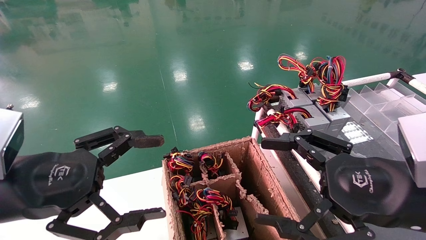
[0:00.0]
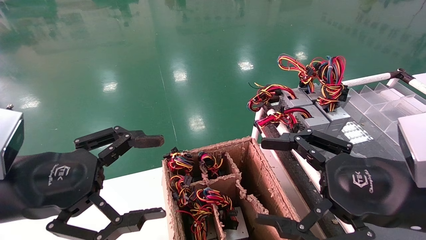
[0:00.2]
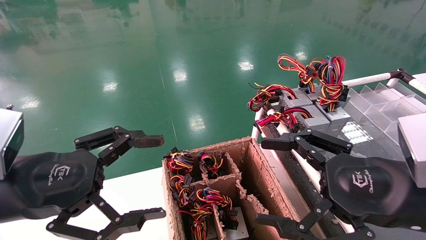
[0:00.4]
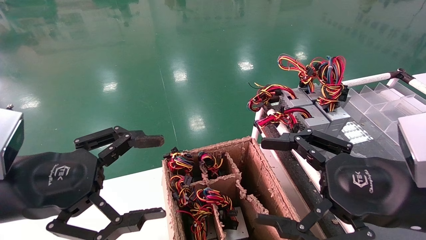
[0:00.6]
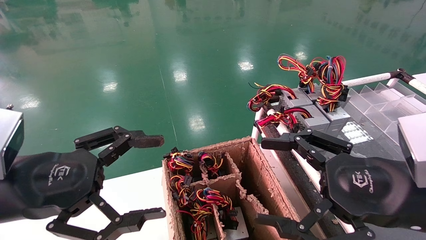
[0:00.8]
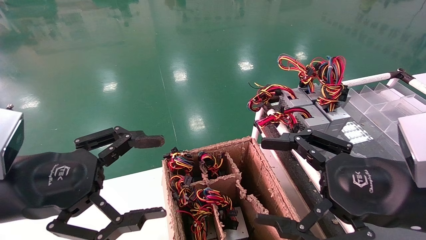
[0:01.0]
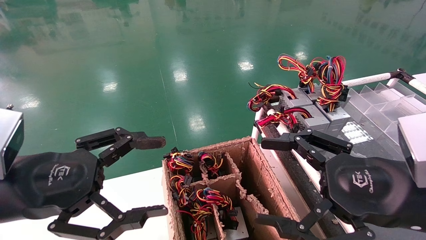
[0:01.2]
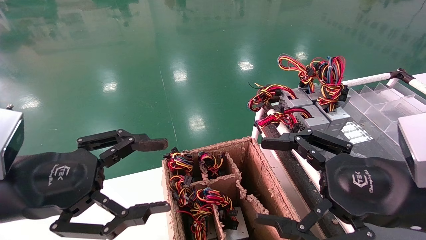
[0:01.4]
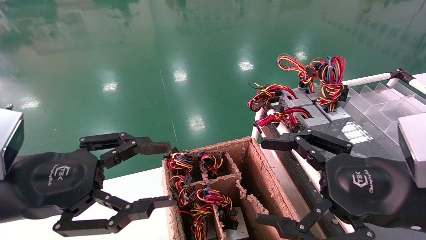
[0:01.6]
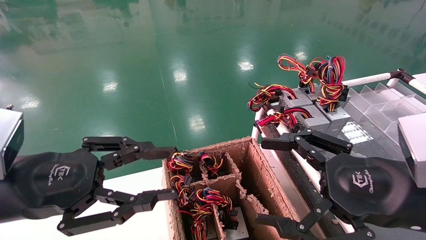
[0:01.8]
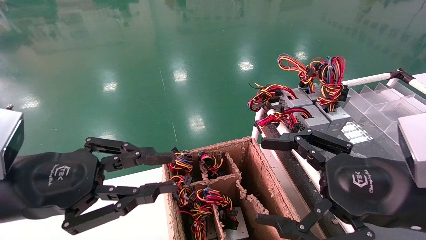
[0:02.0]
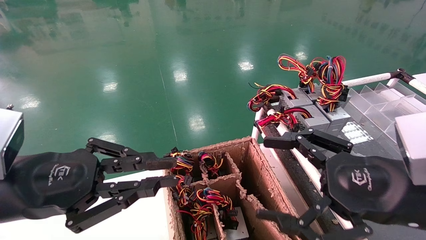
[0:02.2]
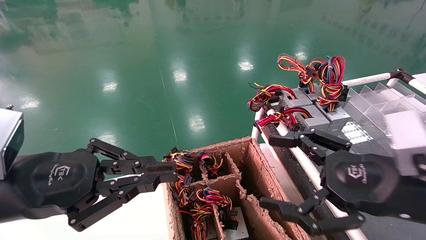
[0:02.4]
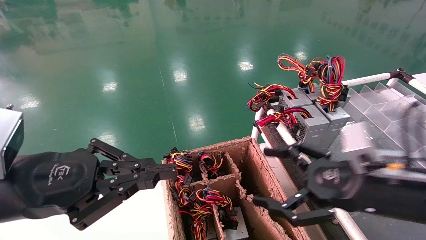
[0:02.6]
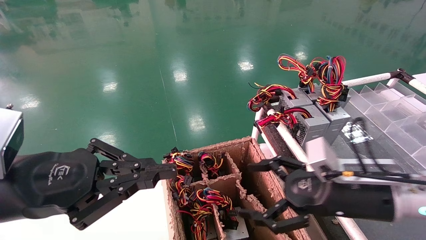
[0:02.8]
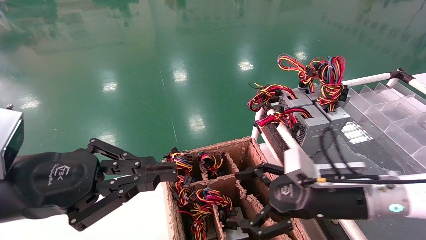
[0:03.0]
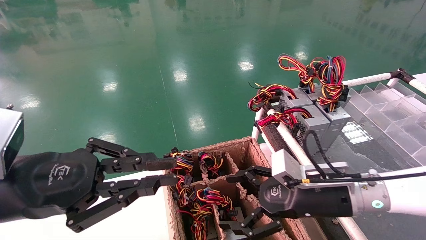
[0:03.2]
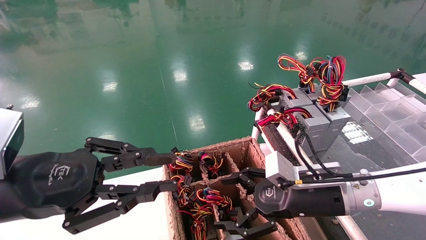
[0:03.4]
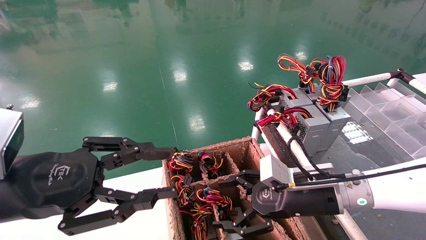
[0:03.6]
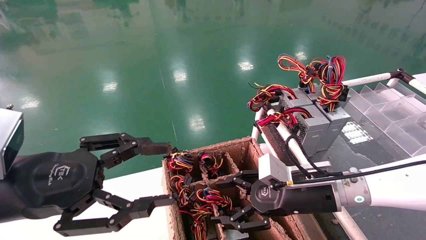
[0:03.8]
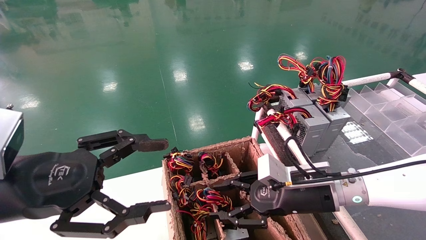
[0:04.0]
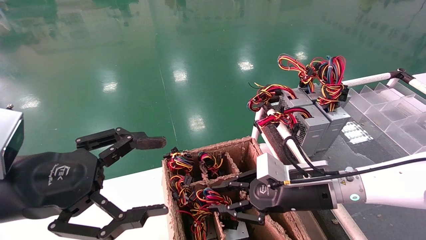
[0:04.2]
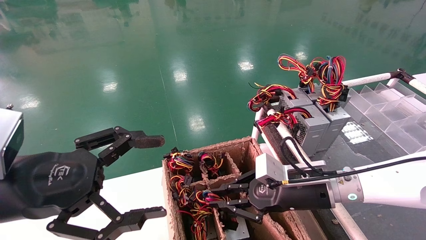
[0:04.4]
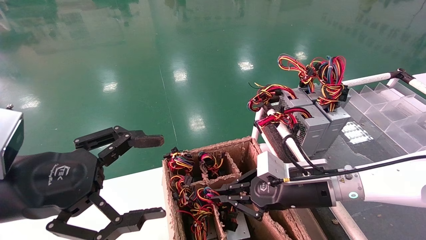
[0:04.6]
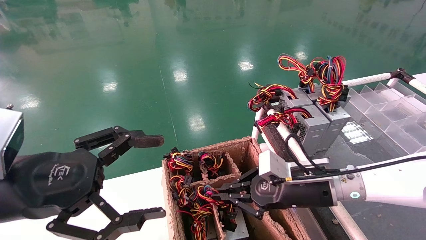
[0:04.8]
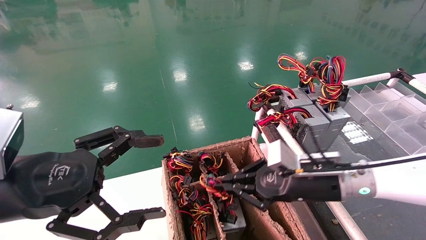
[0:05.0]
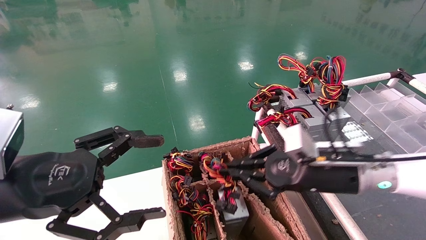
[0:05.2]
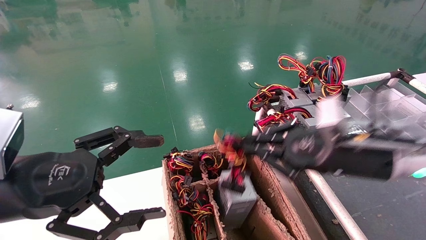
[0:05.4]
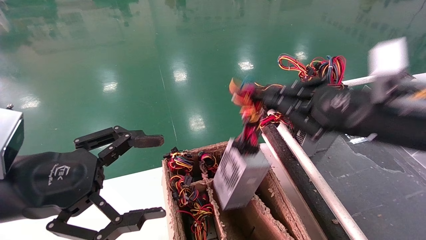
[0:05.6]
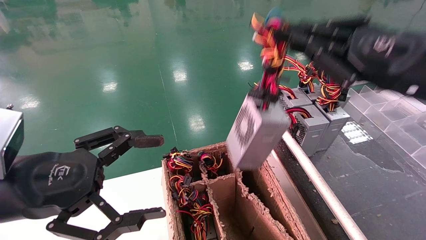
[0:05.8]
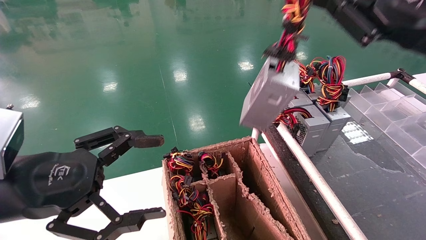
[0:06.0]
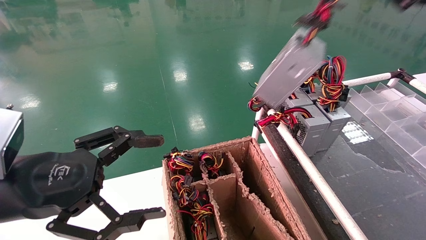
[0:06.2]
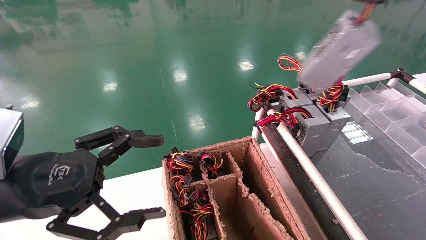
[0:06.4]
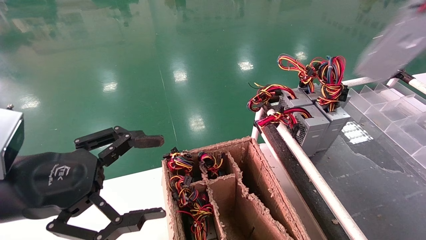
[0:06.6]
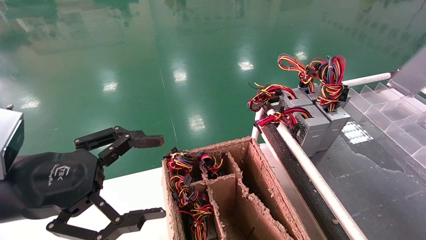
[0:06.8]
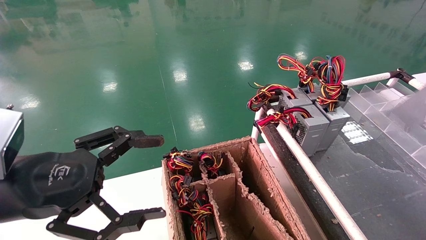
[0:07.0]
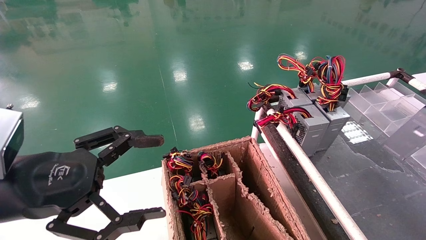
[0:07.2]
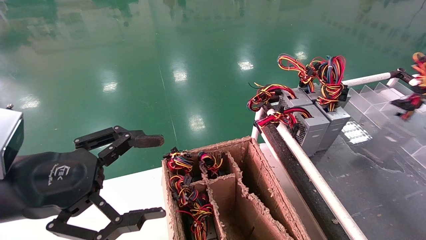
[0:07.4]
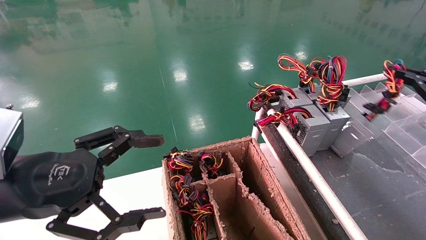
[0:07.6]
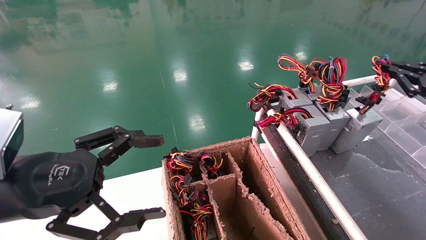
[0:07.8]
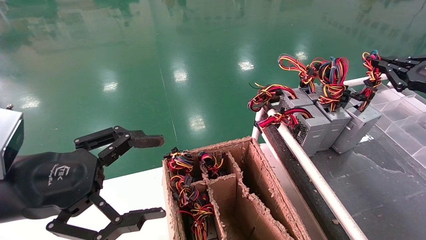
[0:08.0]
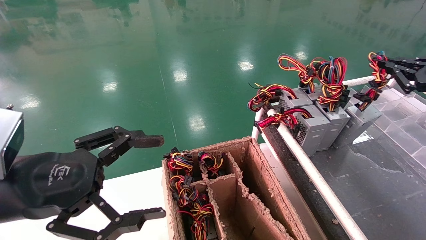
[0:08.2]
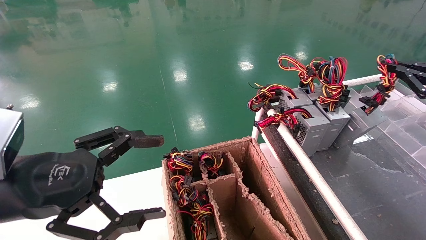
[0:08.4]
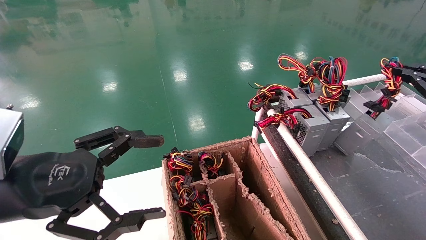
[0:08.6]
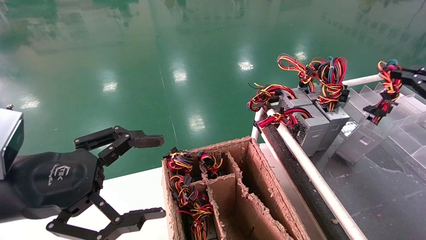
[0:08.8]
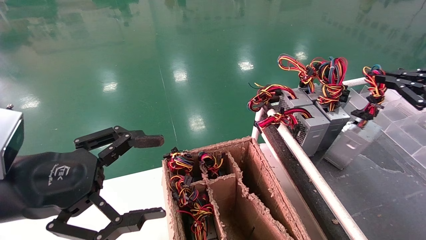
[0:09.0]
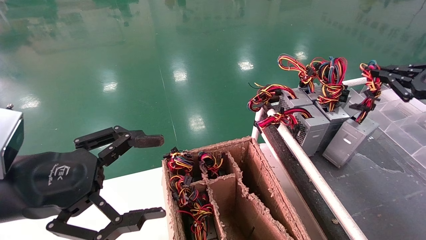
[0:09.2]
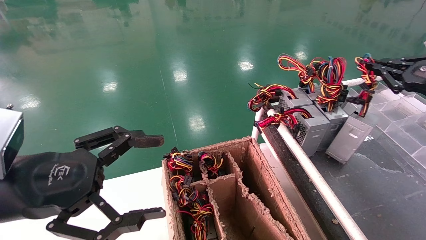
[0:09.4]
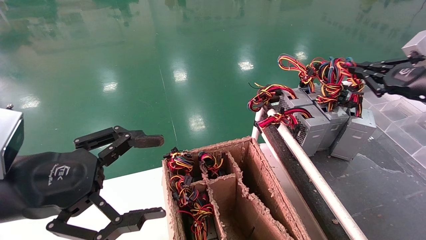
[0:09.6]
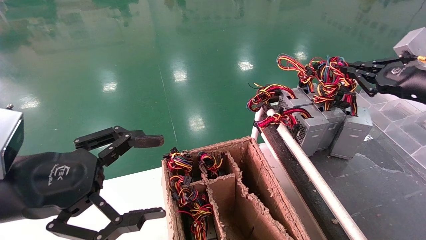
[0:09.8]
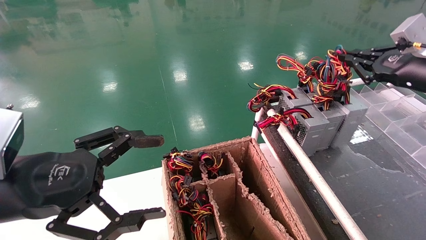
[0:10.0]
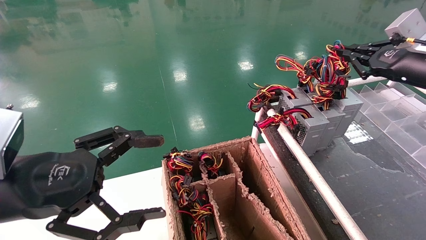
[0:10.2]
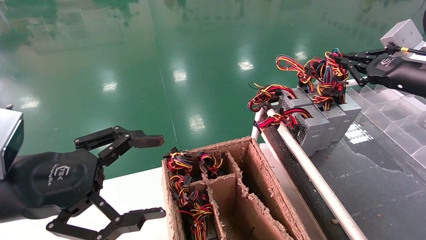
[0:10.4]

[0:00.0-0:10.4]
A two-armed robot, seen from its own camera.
Step, 2.4 to 4.4 s: Grab and lift the power supply from the large box.
0.0 to 1.4 s: Both grippers stay about where they are.
1.4 to 3.0 s: The right gripper goes about 15 cm forward and downward. The left gripper closes up.
3.0 to 4.4 s: The right gripper moves about 5 cm, and closes. Meanwhile the left gripper opens its fingers.
4.4 to 6.0 s: The right gripper is displaced upward and to the right by about 30 cm.
6.0 to 7.4 s: The right gripper is displaced to the right and downward by approximately 20 cm.
7.4 to 9.0 s: The right gripper ends up roughly 5 cm from where it was.
9.0 to 10.4 s: The right gripper shifts roughly 10 cm to the left and forward.

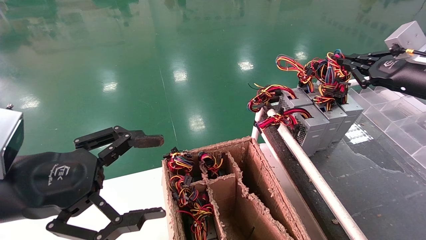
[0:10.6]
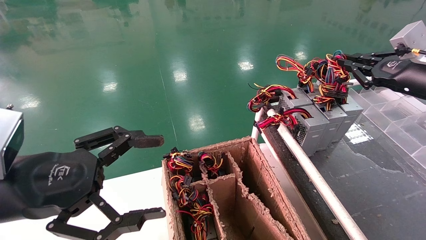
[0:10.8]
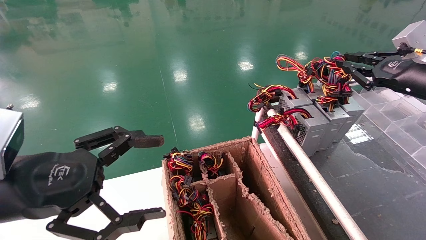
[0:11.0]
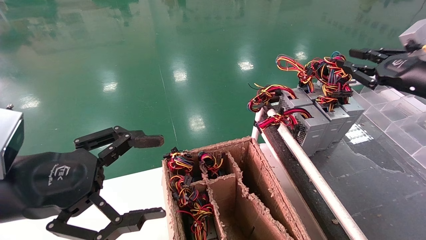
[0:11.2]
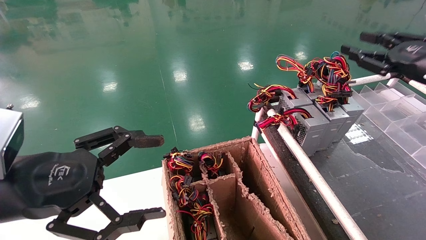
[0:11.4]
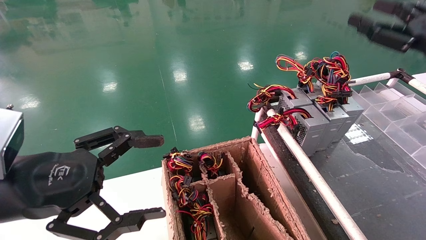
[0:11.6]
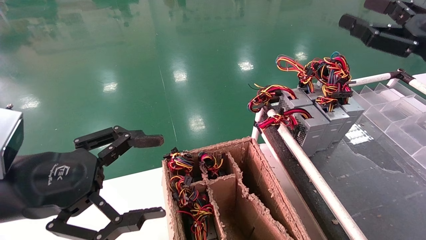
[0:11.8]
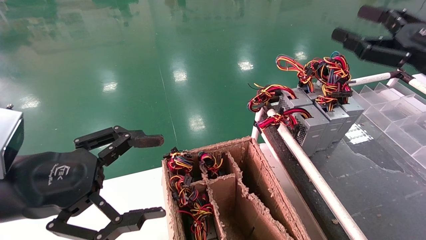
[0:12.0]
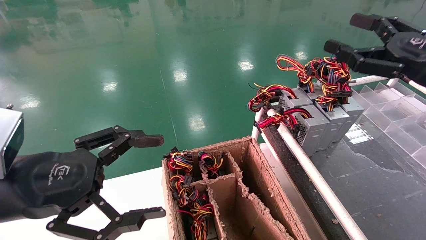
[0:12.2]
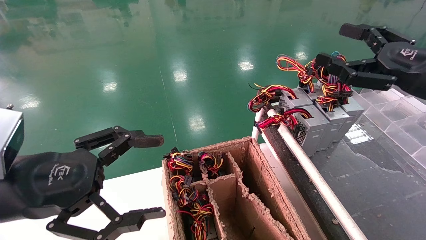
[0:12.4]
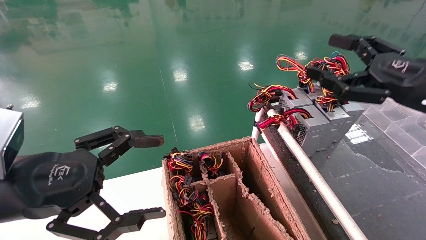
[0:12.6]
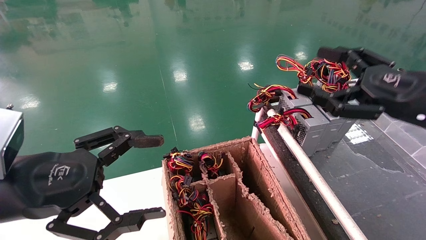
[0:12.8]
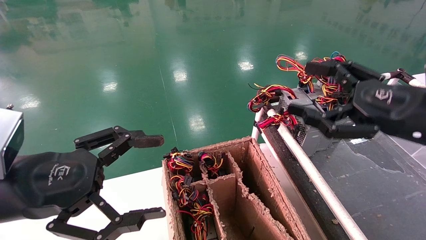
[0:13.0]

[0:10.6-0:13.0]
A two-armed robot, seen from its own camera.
10.6 to 11.8 s: The right gripper shifts approximately 5 cm backward, and opens its fingers.
11.8 to 13.0 s: The right gripper travels to the left, downward and backward by about 10 cm.

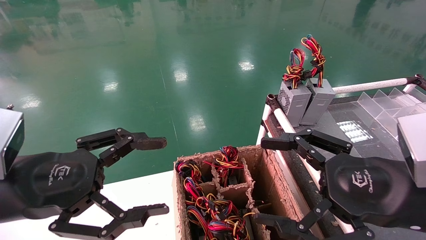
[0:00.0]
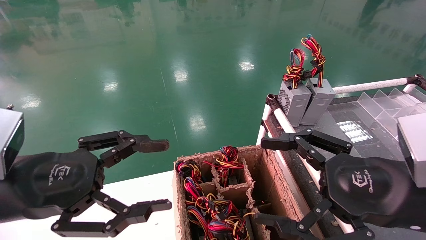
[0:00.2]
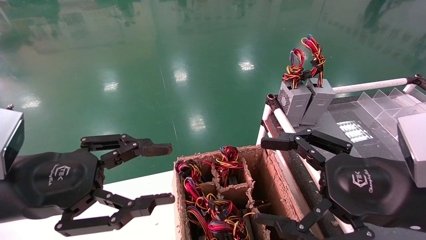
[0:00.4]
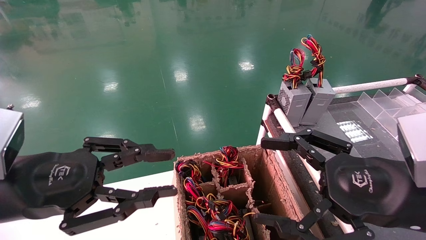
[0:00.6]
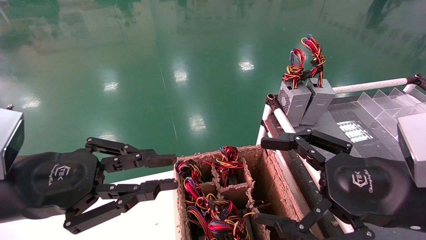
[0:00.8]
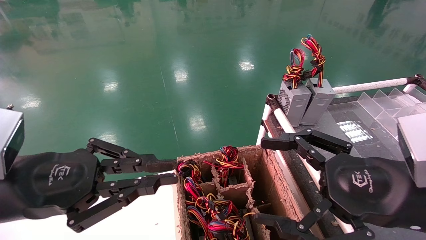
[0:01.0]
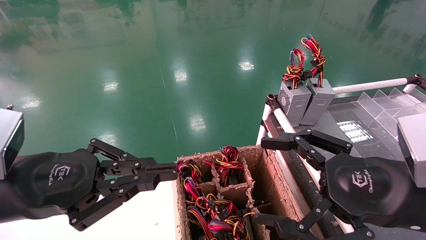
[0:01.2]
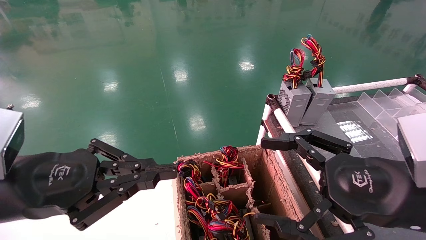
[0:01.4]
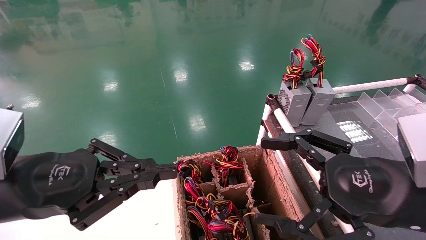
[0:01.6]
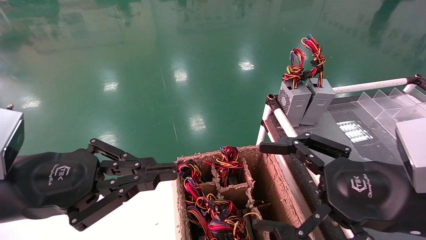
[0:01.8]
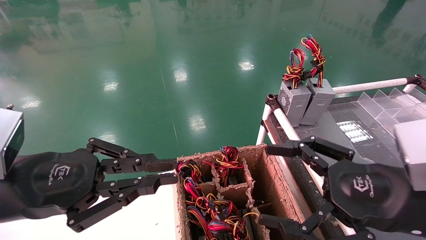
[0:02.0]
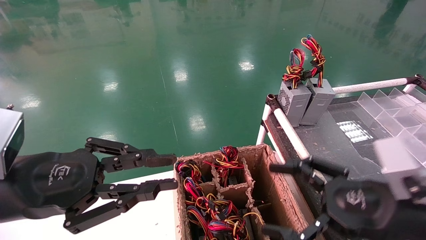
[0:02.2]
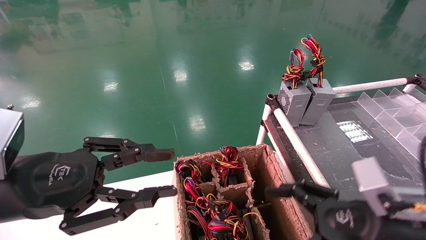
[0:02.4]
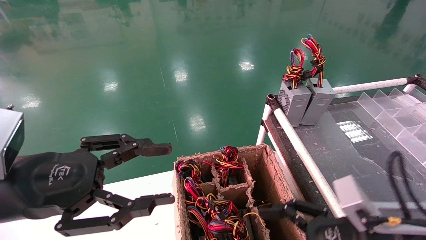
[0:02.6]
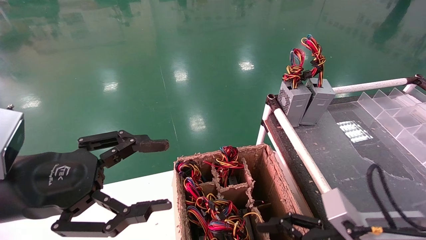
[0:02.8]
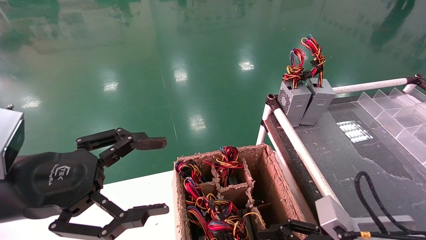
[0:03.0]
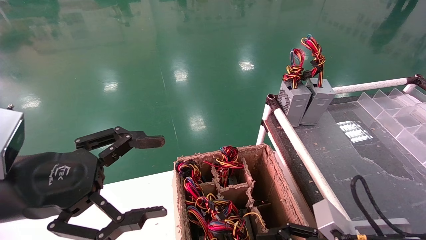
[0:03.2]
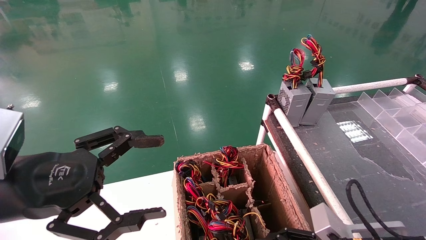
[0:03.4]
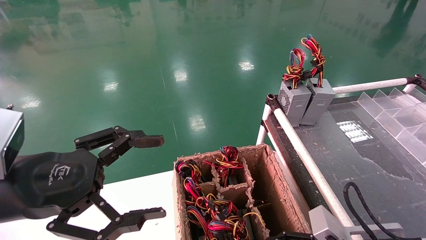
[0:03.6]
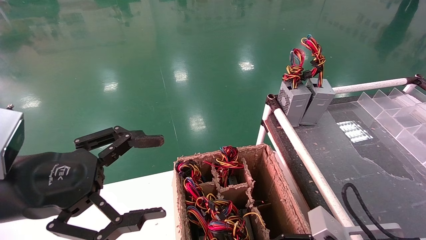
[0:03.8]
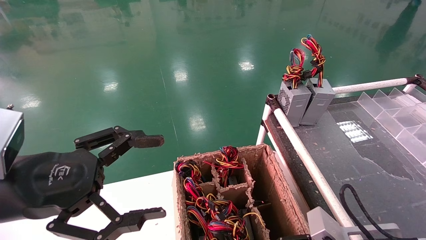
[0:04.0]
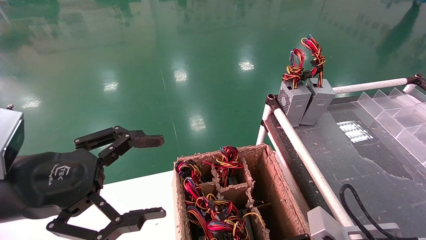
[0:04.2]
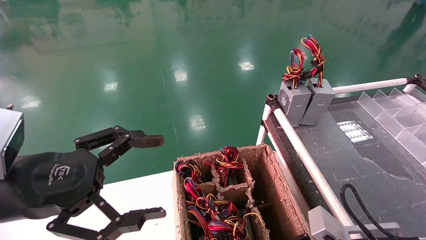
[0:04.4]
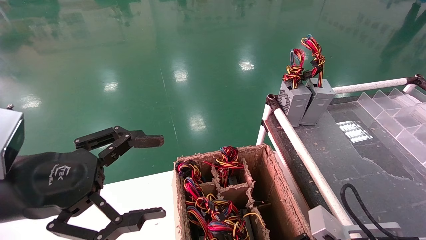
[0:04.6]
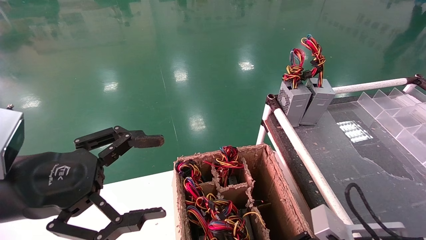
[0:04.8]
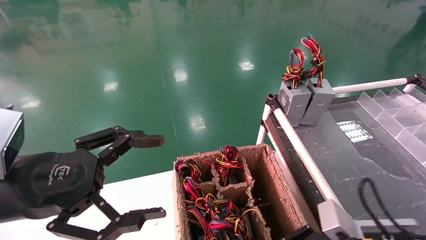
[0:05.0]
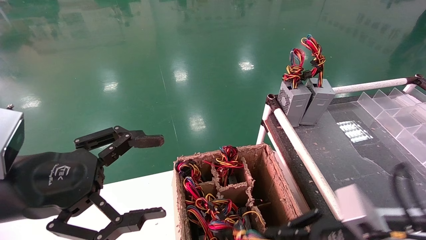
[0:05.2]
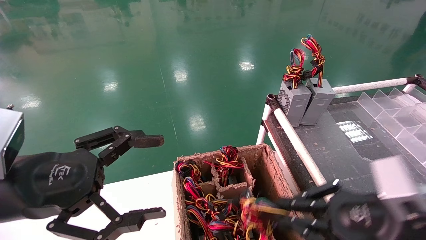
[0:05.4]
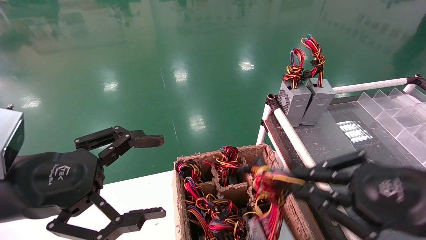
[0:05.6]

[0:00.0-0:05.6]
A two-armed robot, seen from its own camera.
Step, 1.6 to 5.2 s: Grab and lift the power supply from the large box.
0.0 to 1.4 s: The left gripper closes.
1.4 to 2.8 s: The left gripper opens up. Meanwhile the right gripper shifts about 10 cm downward.
2.8 to 4.2 s: The right gripper closes up. The left gripper opens.
4.2 to 5.6 s: The right gripper is displaced upward by roughly 15 cm, and closes up.
